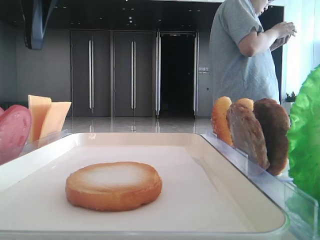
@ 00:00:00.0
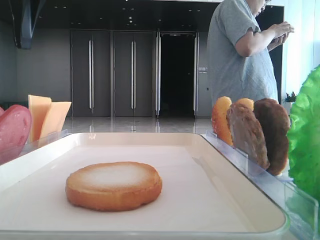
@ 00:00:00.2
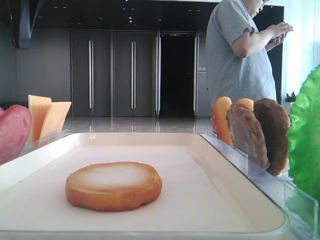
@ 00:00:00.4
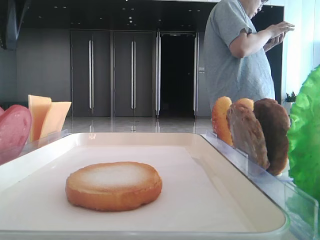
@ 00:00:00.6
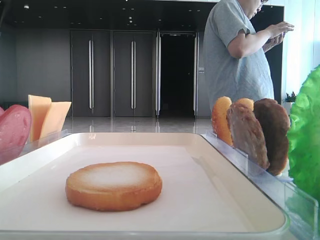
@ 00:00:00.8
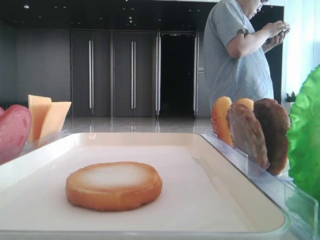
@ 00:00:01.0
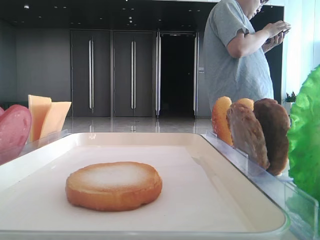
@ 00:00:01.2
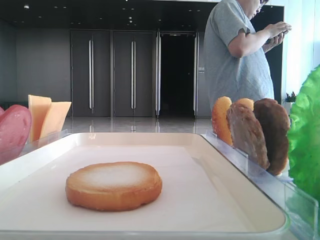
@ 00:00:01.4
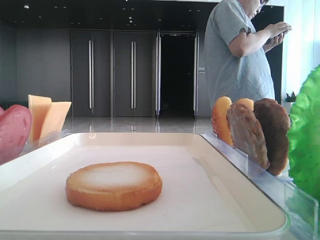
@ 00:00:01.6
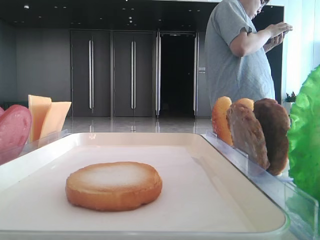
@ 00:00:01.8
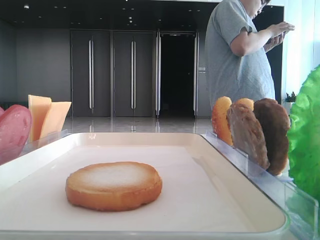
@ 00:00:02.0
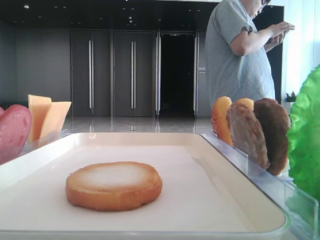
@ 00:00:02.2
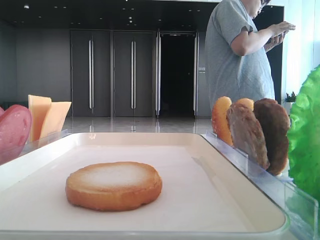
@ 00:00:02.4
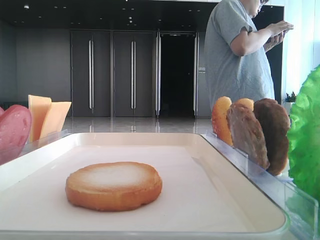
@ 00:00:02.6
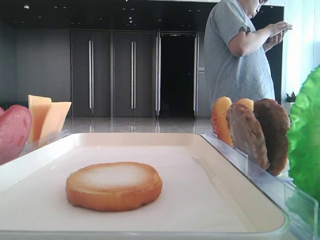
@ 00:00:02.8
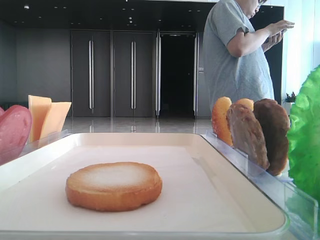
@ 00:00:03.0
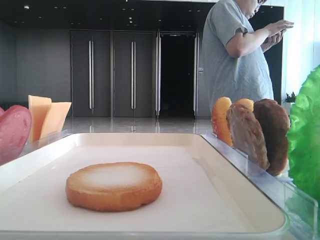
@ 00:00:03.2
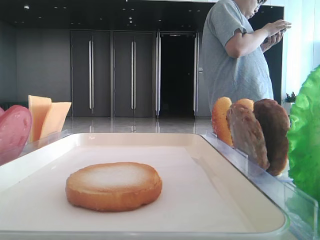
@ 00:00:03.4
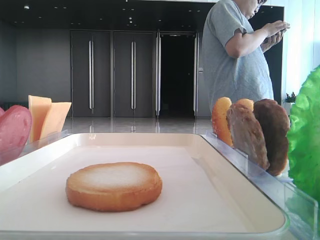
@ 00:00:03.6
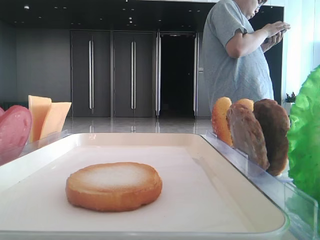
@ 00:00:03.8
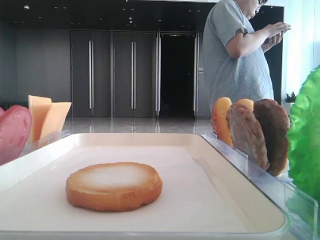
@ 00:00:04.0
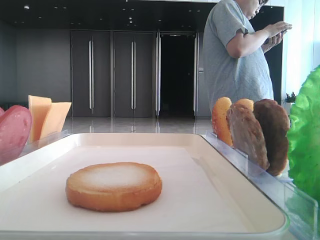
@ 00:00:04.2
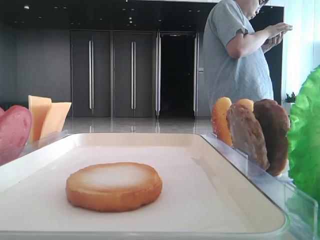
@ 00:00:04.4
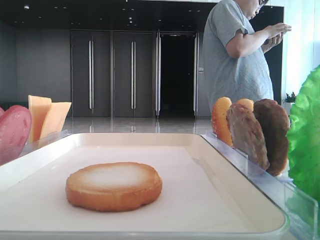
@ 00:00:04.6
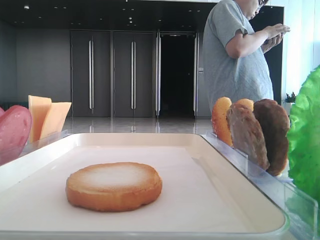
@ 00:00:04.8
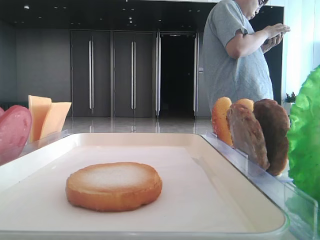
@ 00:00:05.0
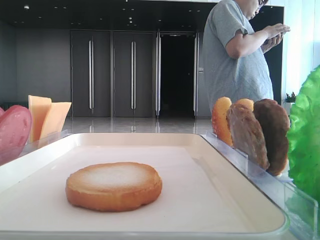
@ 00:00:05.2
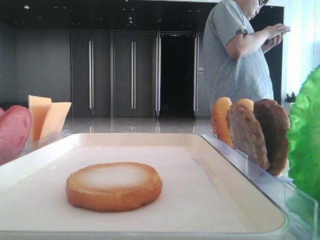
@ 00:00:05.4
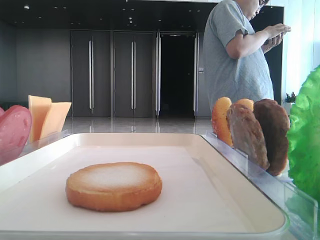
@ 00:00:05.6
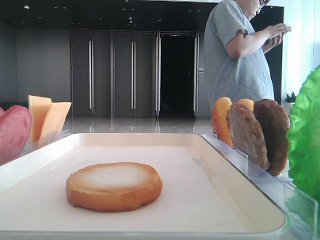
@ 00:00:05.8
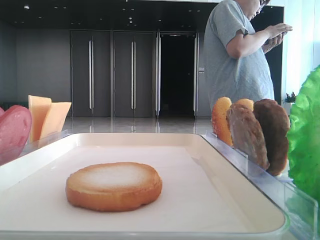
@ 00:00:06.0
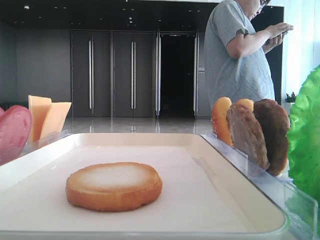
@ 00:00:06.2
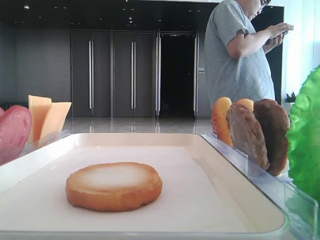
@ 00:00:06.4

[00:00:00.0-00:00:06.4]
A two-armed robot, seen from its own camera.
00:00:00.0 to 00:00:01.6: The left gripper travels to the left by roughly 20 cm.
00:00:04.8 to 00:00:06.4: The grippers make only small movements.

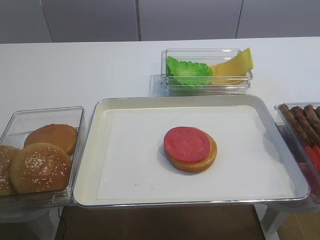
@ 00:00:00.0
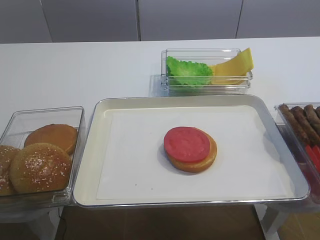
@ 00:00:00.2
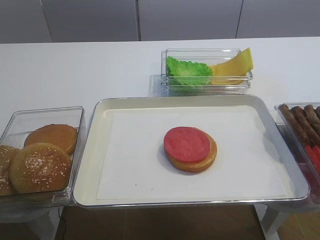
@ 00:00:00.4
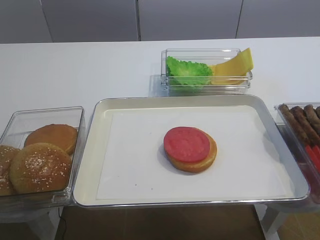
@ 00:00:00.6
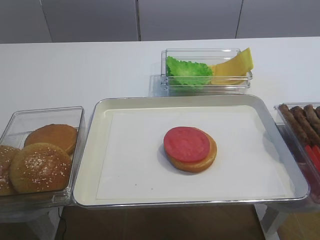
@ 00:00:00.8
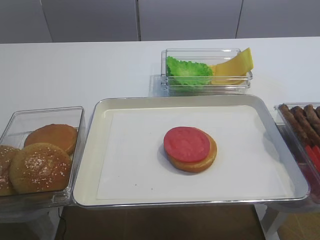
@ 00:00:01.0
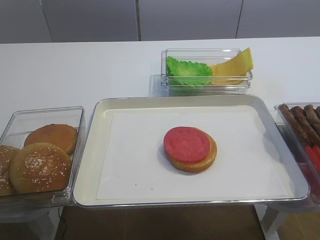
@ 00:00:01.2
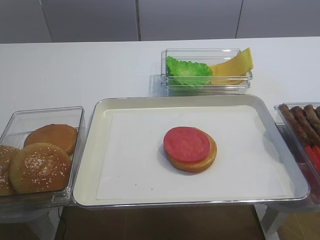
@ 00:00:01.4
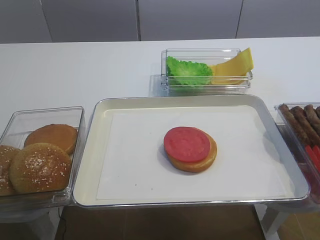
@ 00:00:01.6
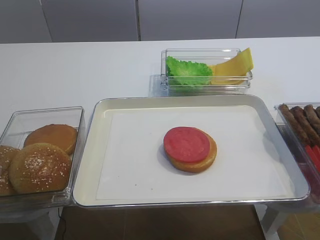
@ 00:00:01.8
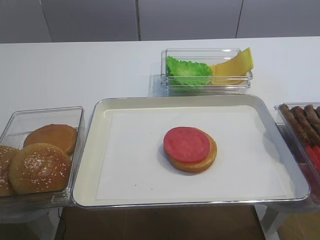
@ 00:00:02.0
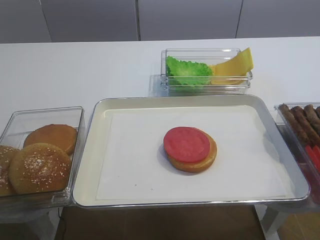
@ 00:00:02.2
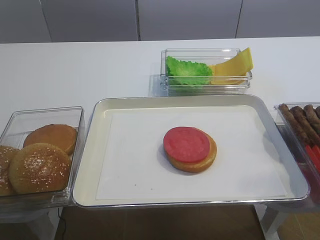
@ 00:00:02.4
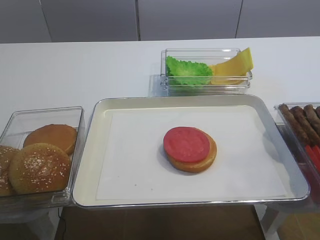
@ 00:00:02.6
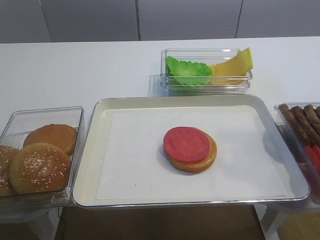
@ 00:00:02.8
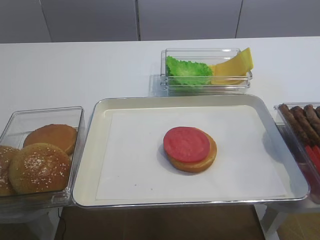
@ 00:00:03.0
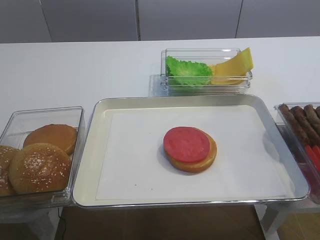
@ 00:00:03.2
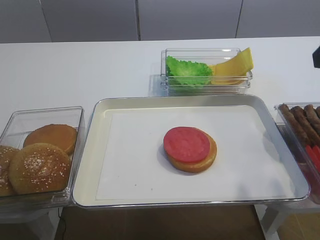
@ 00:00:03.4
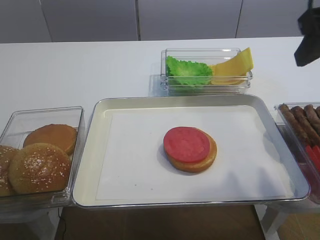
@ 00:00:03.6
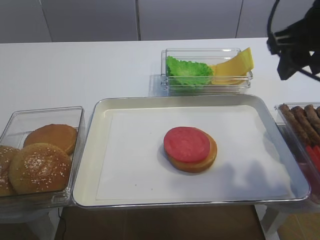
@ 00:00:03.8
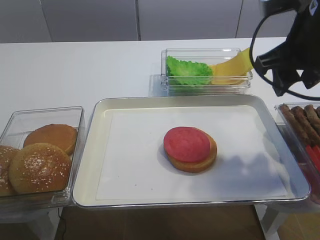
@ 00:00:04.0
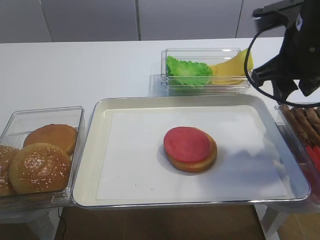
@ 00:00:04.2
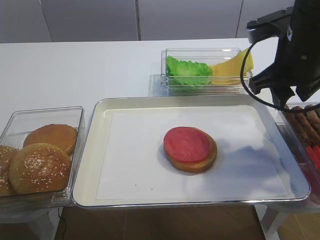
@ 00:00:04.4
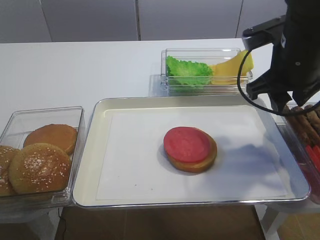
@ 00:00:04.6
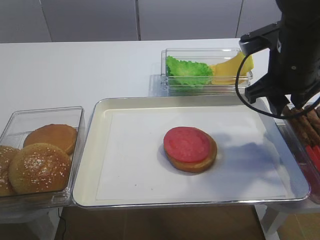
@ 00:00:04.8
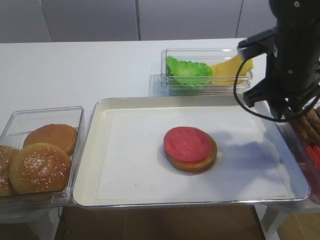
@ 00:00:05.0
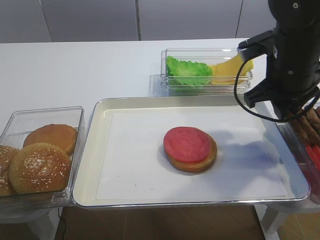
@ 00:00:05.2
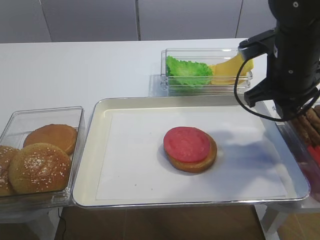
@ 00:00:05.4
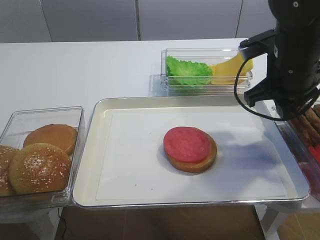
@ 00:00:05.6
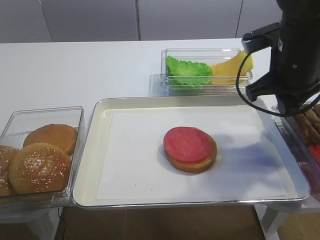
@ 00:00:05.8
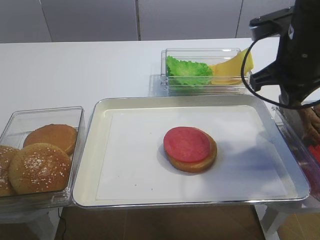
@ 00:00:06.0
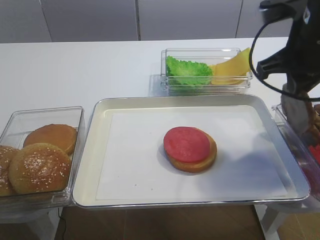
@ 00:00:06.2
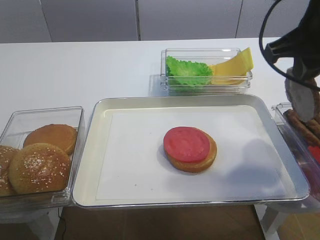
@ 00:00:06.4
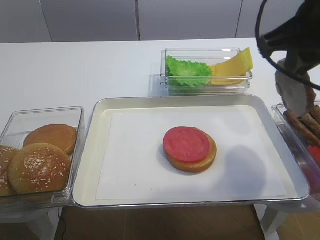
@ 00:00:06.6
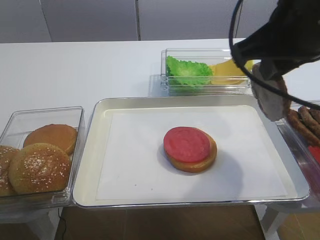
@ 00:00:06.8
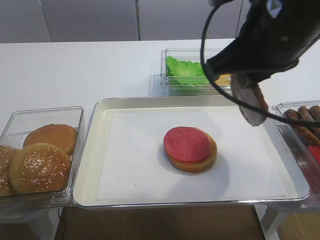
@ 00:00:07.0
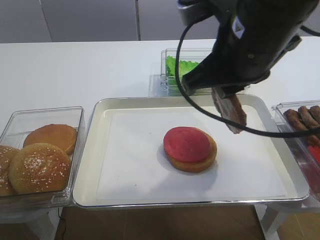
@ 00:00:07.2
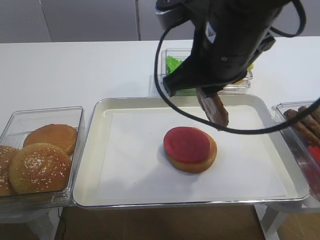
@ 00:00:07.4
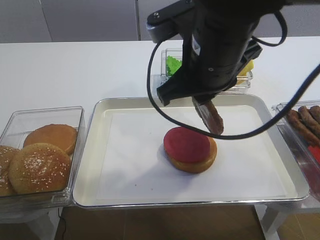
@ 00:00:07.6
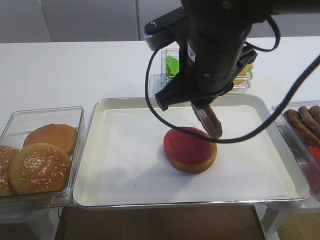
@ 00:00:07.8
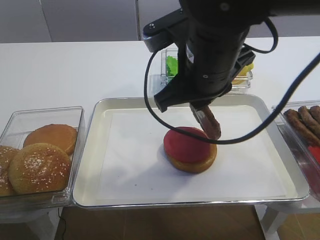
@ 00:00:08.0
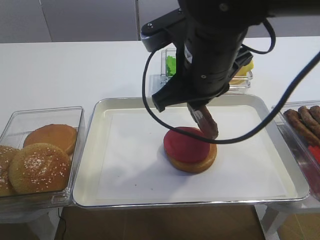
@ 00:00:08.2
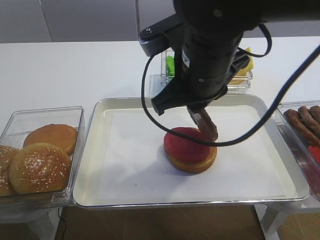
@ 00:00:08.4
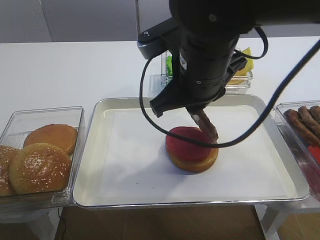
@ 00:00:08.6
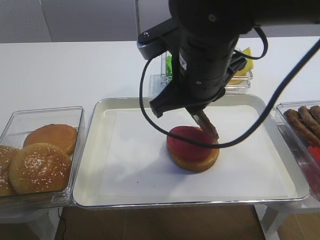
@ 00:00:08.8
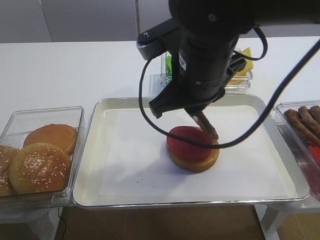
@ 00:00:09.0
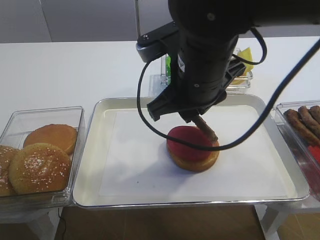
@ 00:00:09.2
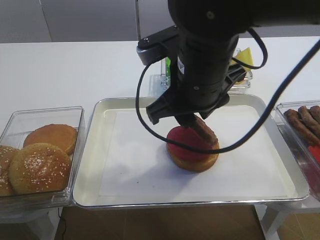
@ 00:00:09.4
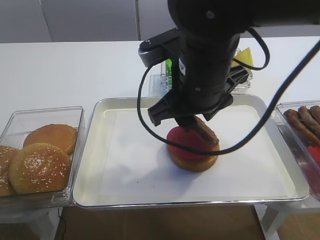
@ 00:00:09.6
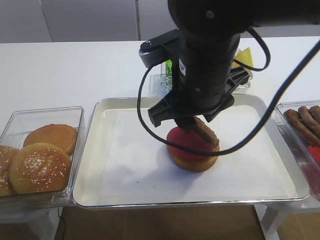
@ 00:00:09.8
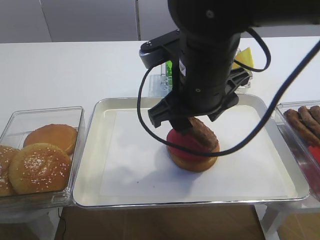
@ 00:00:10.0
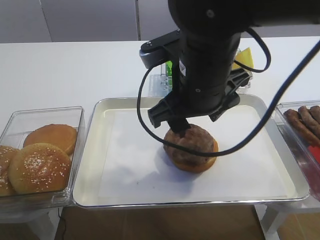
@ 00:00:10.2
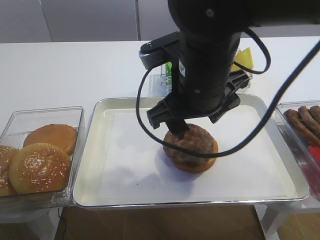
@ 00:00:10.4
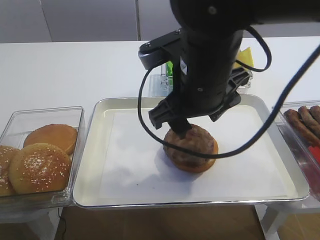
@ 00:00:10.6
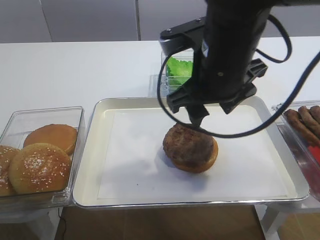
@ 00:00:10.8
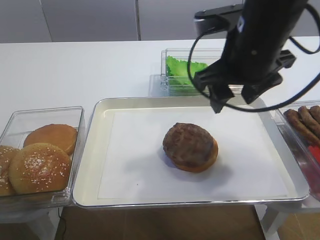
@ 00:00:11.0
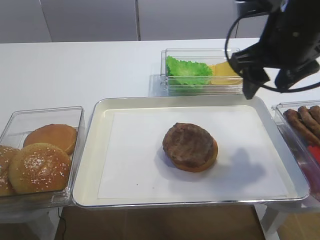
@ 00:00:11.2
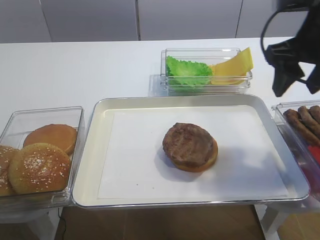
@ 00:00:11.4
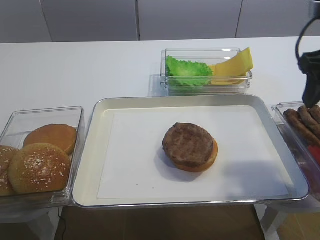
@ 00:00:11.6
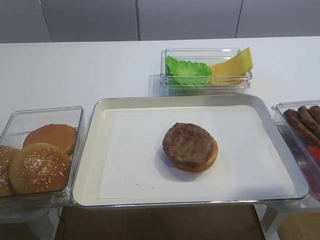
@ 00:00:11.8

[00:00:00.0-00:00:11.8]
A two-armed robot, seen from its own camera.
Step, 00:00:00.0 to 00:00:06.2: Pick up the cutlet with the right gripper.
Step, 00:00:06.4 to 00:00:10.2: Place the cutlet on the tomato slice with the right gripper.
00:00:03.0 to 00:00:04.4: The right gripper is displaced forward and to the left by some 20 cm.
00:00:04.4 to 00:00:06.0: The right gripper closes up.
00:00:06.0 to 00:00:07.4: The right gripper moves to the left and backward, approximately 15 cm.
00:00:07.4 to 00:00:08.8: The grippers make only small movements.
00:00:08.8 to 00:00:10.4: The right gripper opens up.
00:00:10.4 to 00:00:11.8: The right gripper moves to the right, some 20 cm.

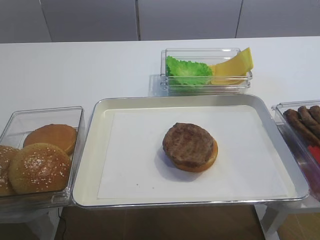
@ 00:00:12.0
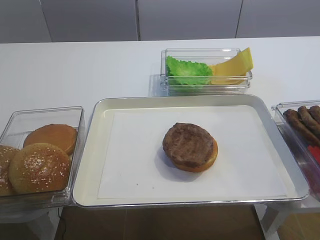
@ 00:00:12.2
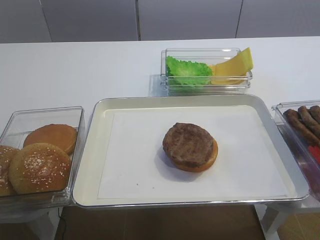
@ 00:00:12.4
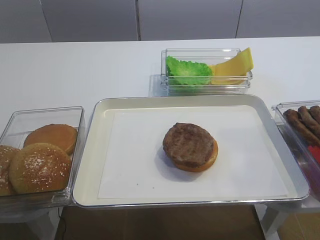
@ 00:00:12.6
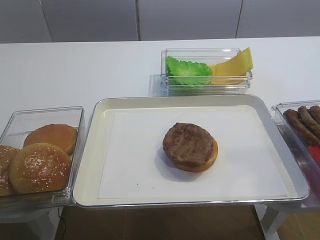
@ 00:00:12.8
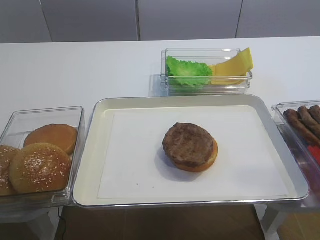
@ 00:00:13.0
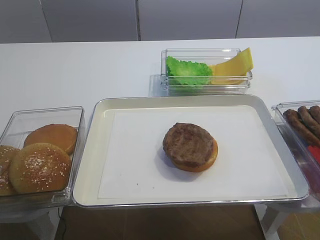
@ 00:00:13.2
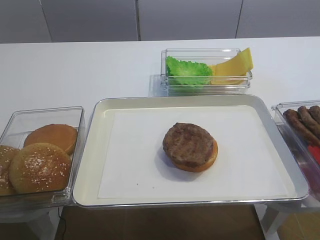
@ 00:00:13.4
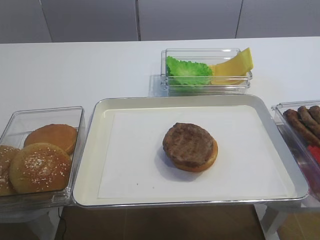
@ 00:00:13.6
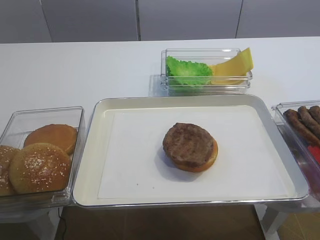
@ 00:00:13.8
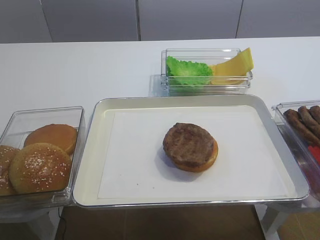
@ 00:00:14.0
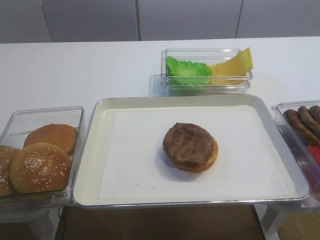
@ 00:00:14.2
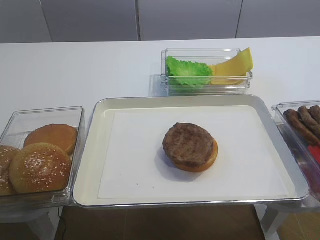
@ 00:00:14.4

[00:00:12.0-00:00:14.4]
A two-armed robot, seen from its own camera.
00:00:12.0 to 00:00:13.2: The right gripper travels backward by some 20 cm.
